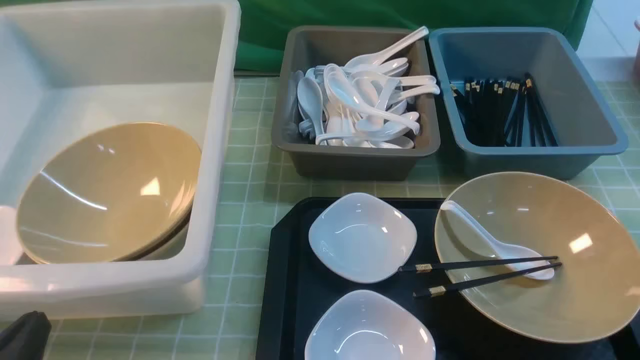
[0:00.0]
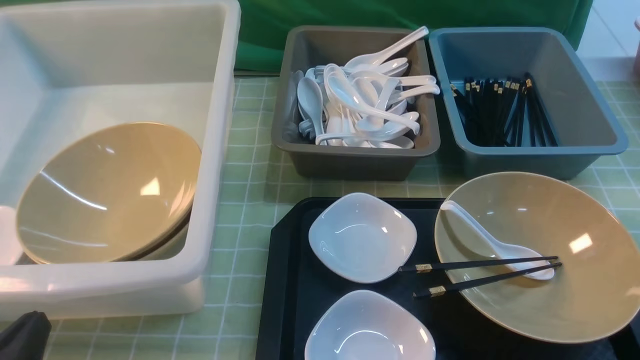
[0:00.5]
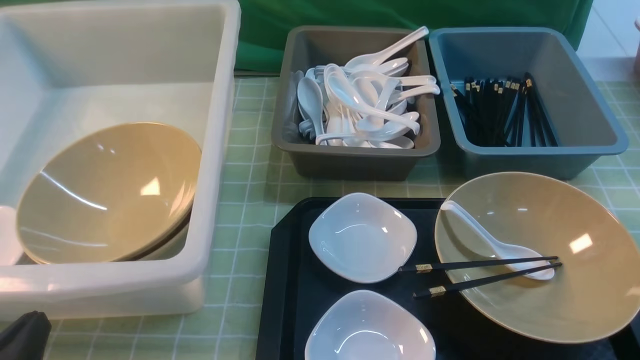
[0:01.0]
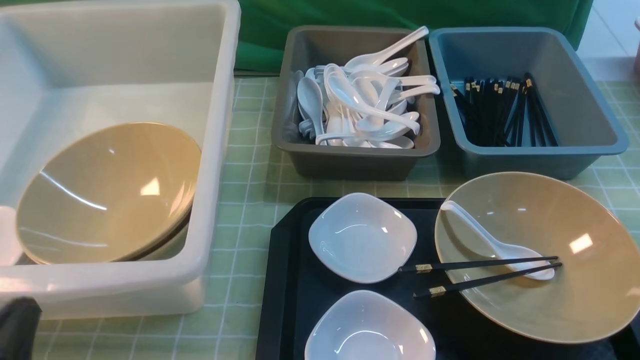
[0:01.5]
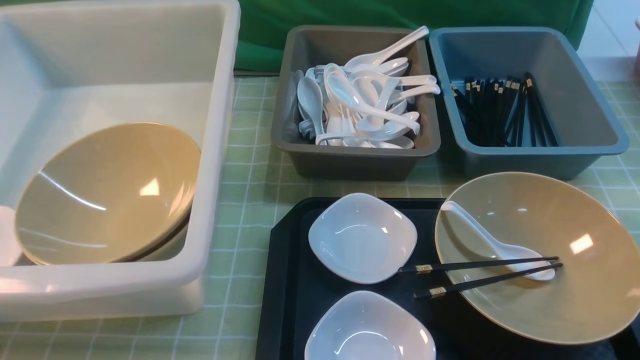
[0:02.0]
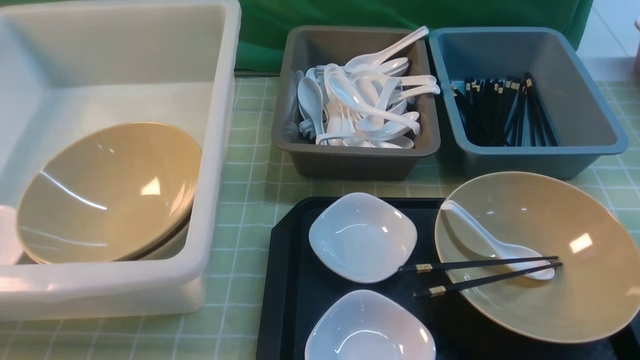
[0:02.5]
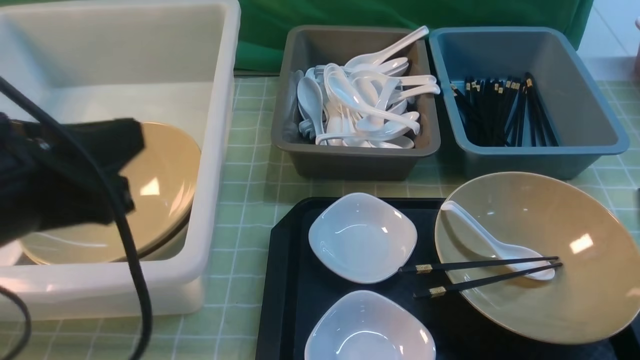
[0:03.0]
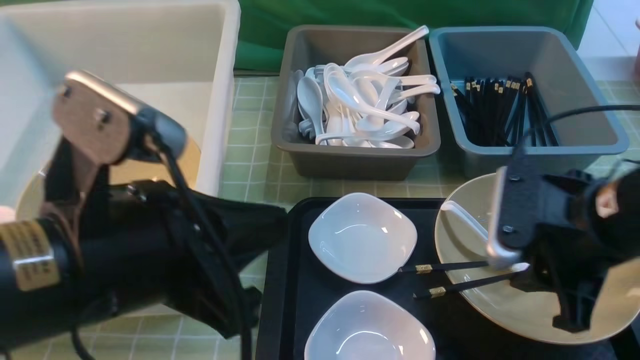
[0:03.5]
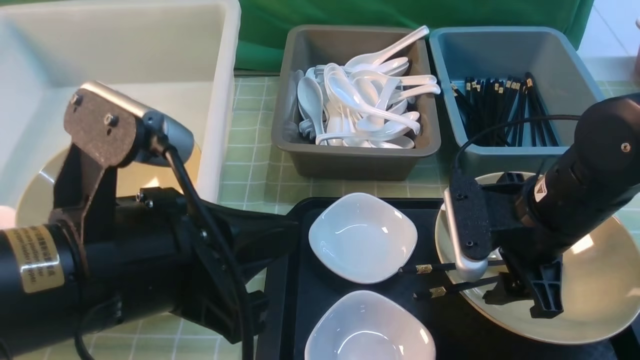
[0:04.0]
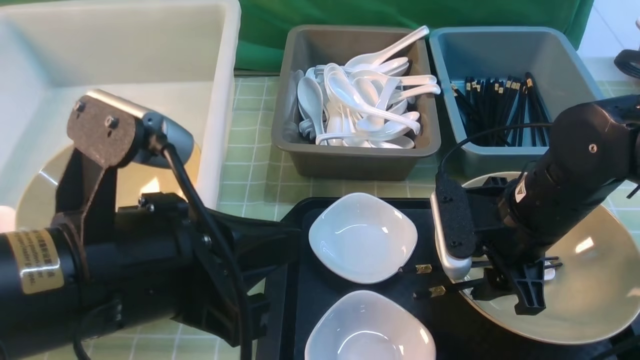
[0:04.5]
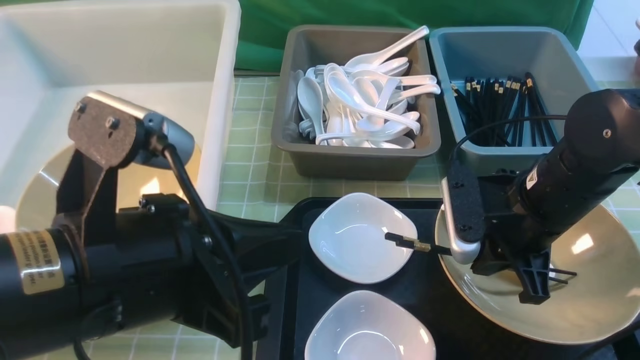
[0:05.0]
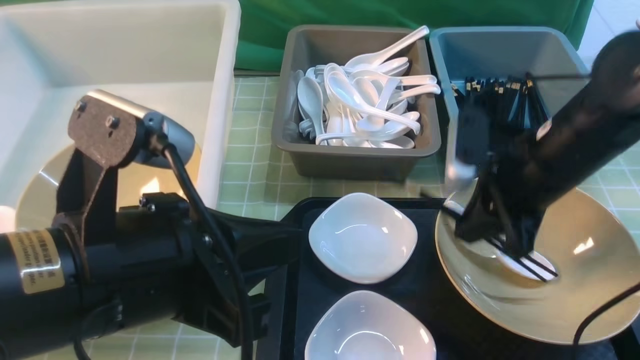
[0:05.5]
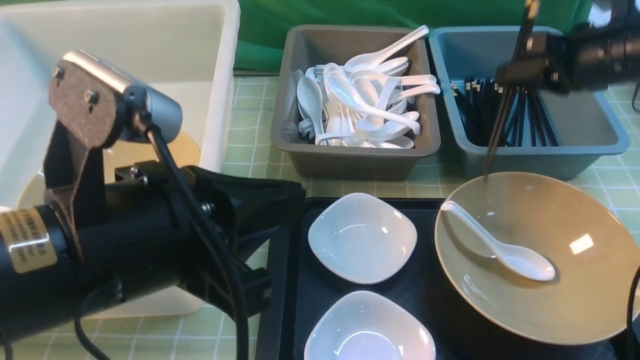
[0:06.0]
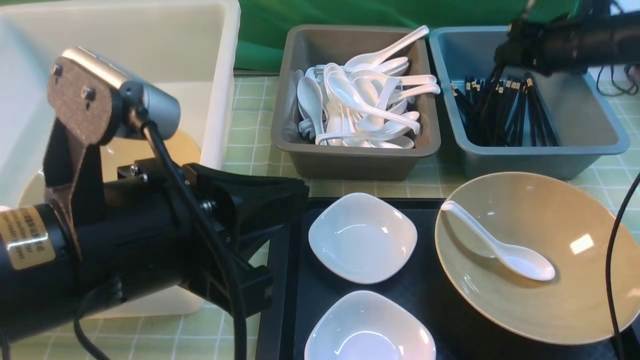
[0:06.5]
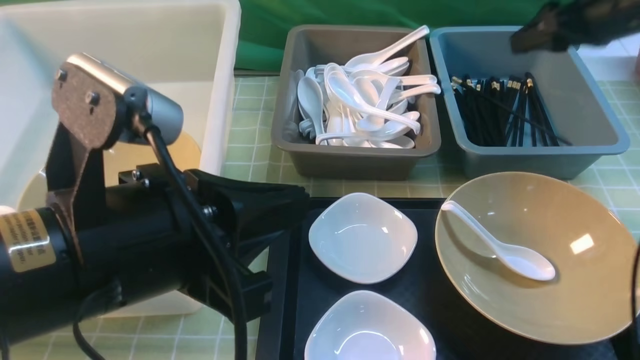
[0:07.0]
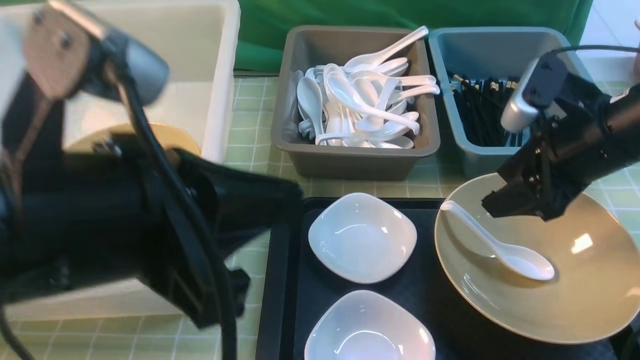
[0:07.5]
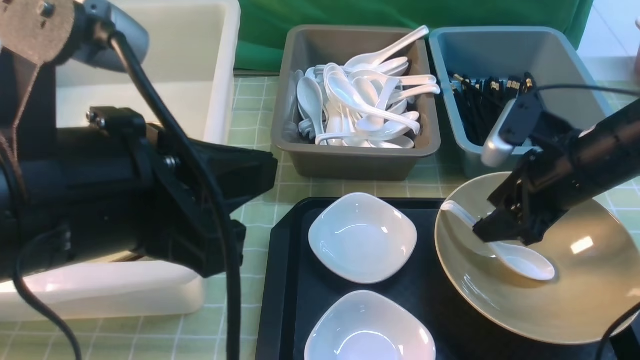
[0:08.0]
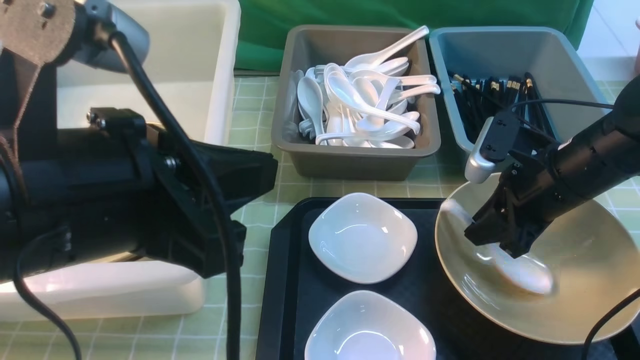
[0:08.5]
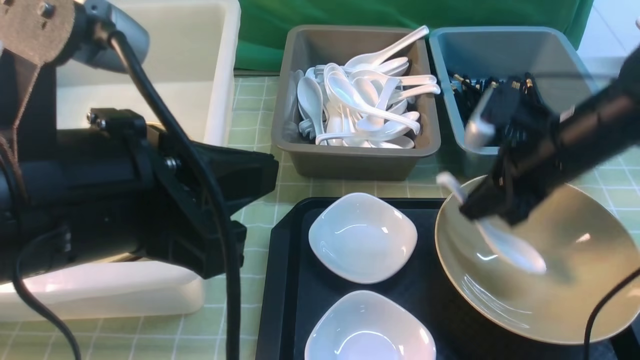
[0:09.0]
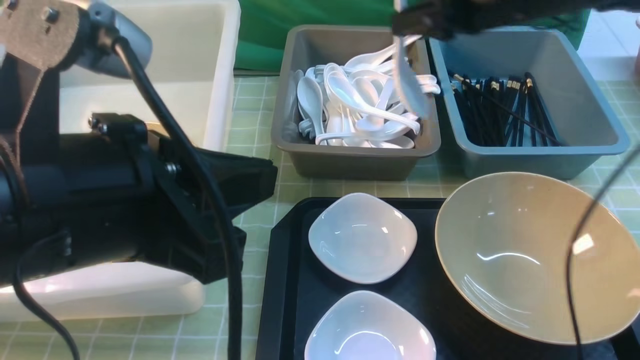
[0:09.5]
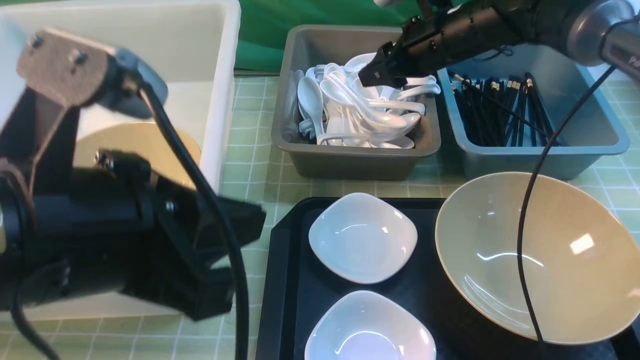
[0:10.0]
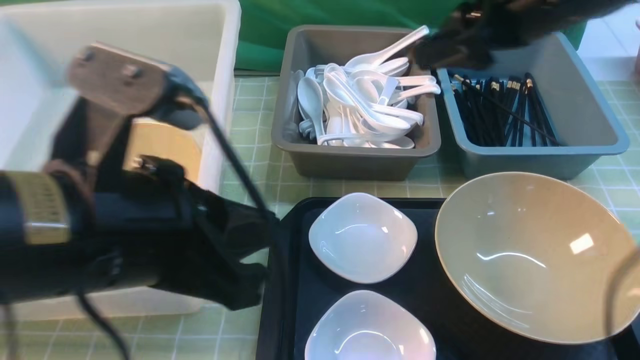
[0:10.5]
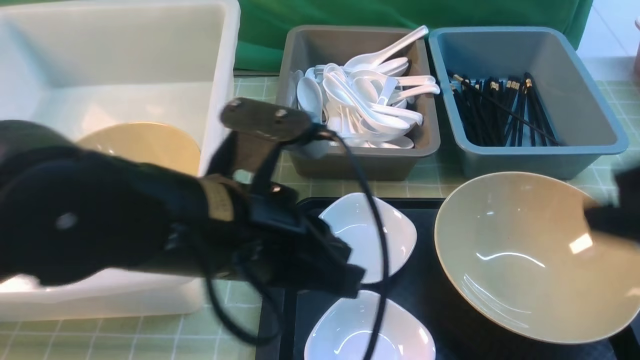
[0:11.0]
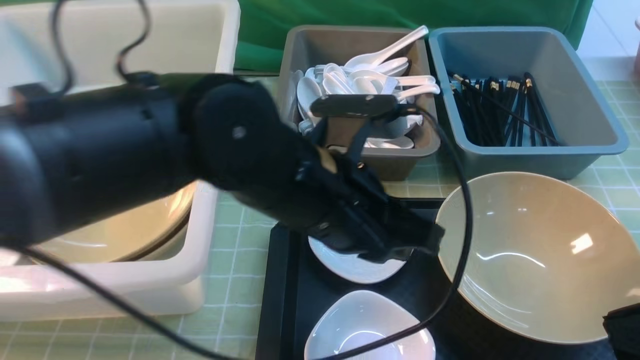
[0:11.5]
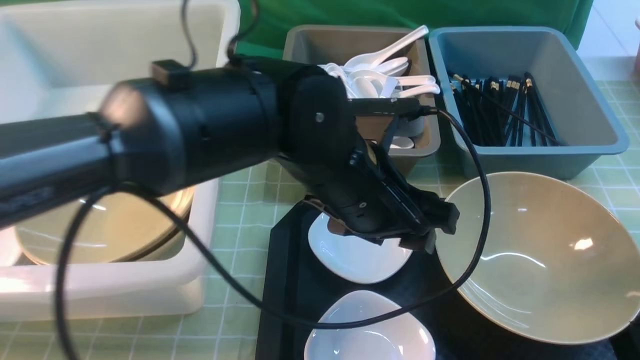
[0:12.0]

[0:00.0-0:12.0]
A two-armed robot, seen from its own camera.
Task of the whole recording: on green table put chopsticks spoon bowls plates into blue grey white boxes.
Step, 0:00.0 to 0:05.5: use the right arm to grab the chopsticks.
Step, 0:06.0 to 0:07.5: use the right arm to put the chopsticks into the small storage box on the right.
Step, 0:08.0 to 0:09.0: use the right arm to grab the soup spoon in the middle.
Step, 0:09.5 to 0:10.0: use the right arm to put the soup spoon into the small storage box in the middle.
0:02.0 to 0:04.0: The left gripper goes roughly 20 cm to the right, upward and forward, while the right gripper goes some 25 cm forward and to the left, and opens its fingers.
0:04.0 to 0:06.0: The right gripper is displaced forward, to the right and upward by roughly 15 cm, and closes up.
0:06.0 to 0:08.0: The right gripper moves backward and downward, approximately 10 cm, and opens its fingers.
0:08.0 to 0:10.0: The right gripper heads forward and to the left, covering some 20 cm, and closes up.
0:10.0 to 0:12.0: The right gripper travels backward by about 40 cm, and closes; the left gripper travels to the right, forward and downward by approximately 20 cm, and opens its fingers.

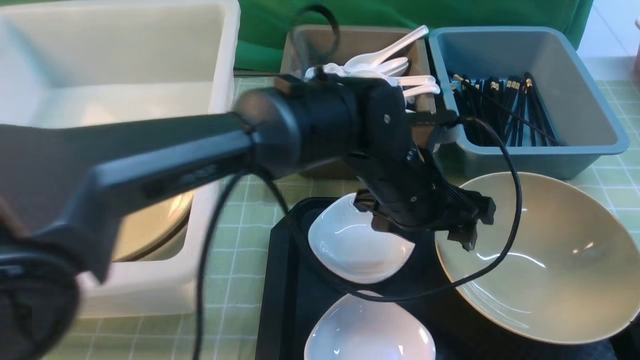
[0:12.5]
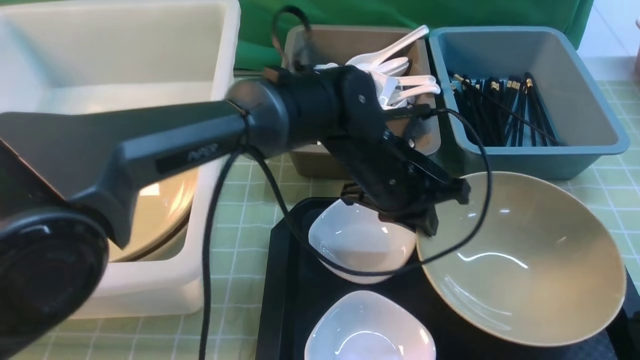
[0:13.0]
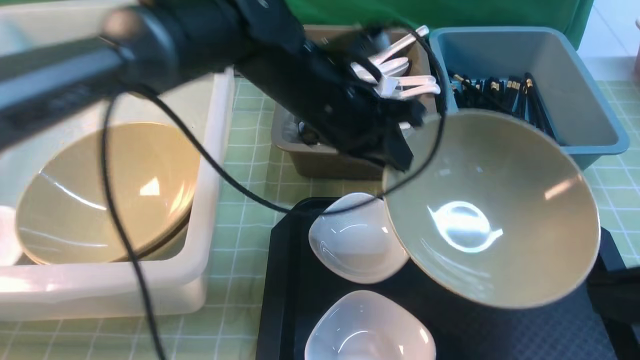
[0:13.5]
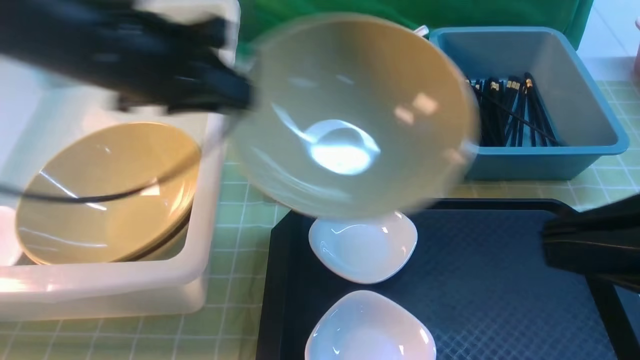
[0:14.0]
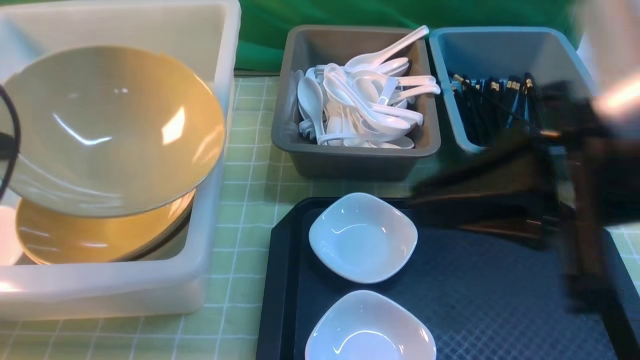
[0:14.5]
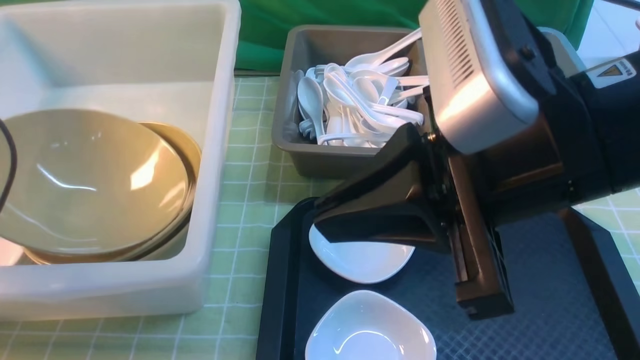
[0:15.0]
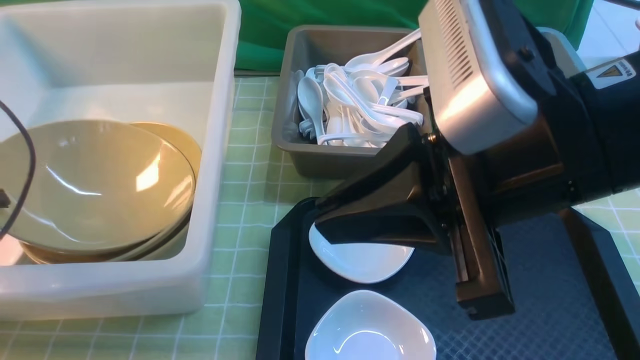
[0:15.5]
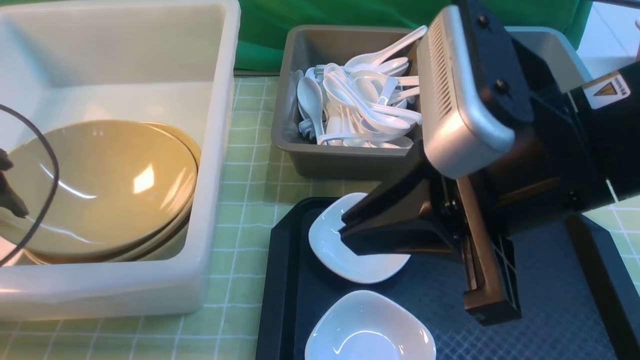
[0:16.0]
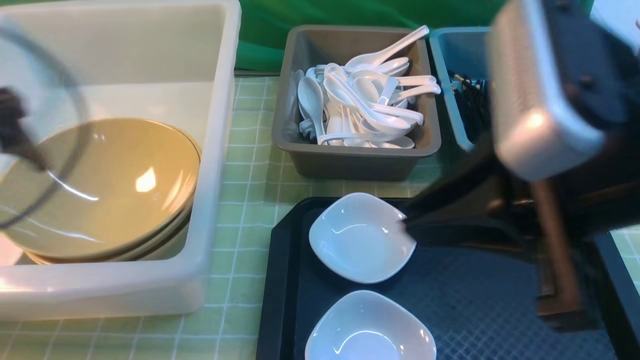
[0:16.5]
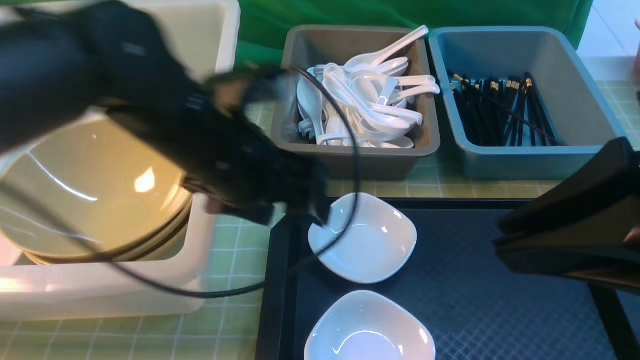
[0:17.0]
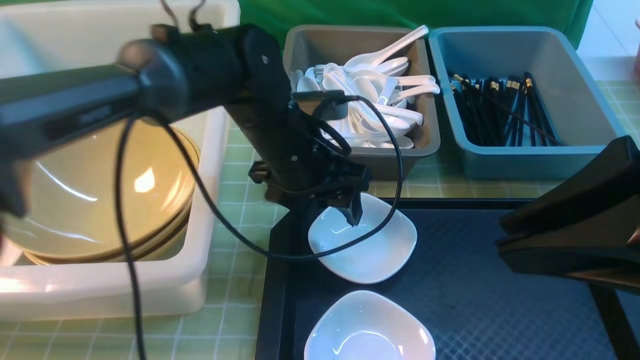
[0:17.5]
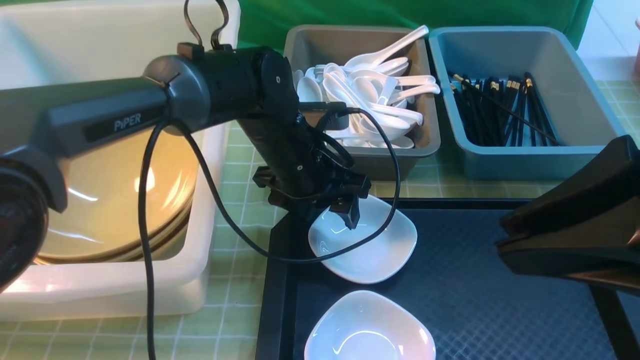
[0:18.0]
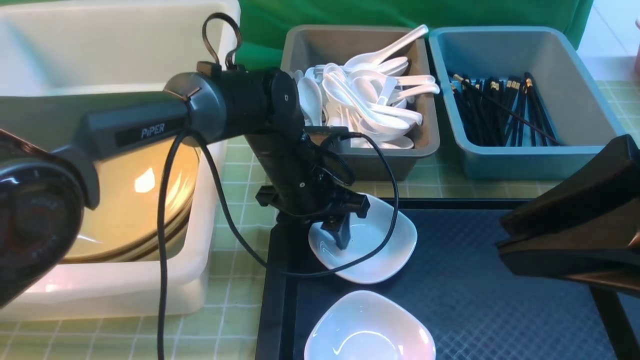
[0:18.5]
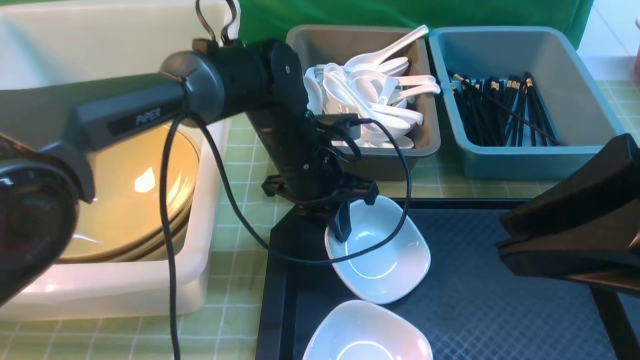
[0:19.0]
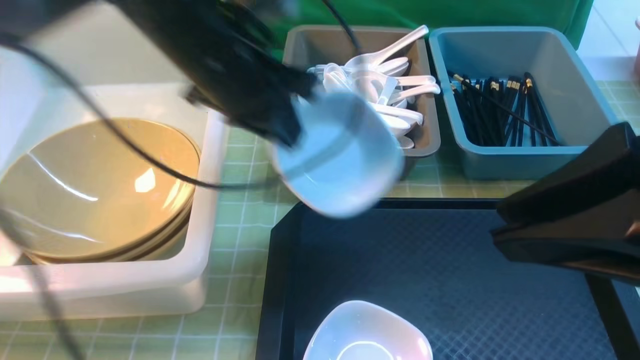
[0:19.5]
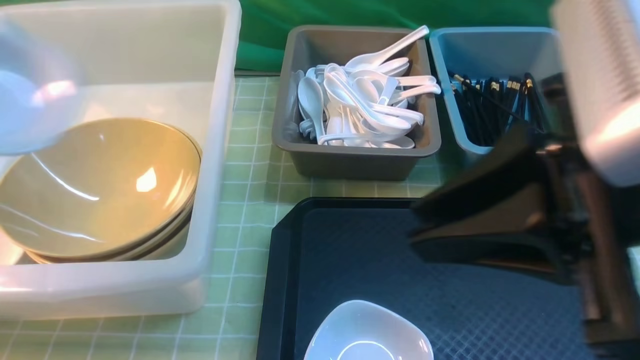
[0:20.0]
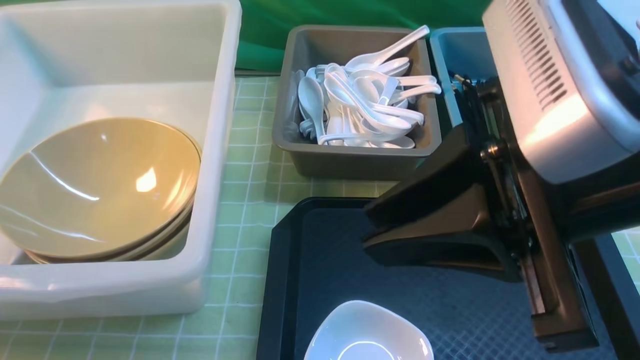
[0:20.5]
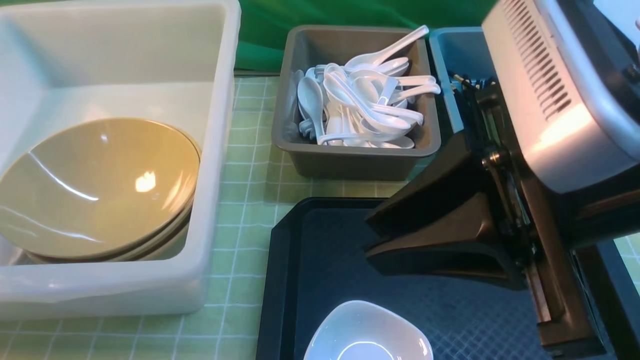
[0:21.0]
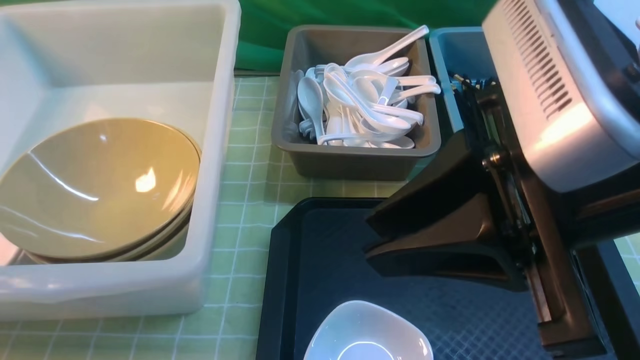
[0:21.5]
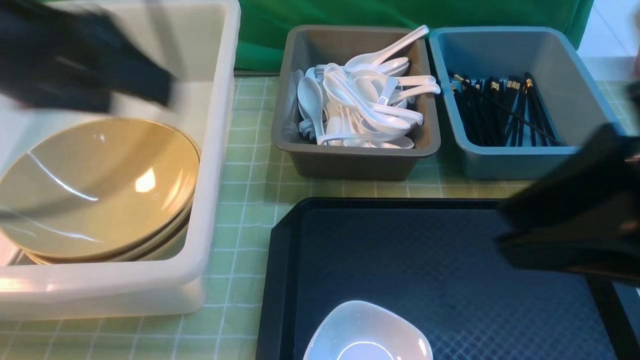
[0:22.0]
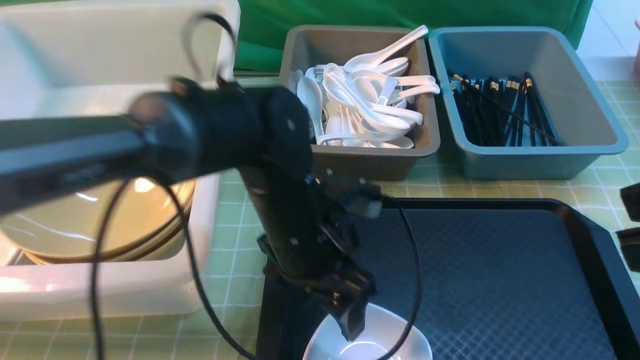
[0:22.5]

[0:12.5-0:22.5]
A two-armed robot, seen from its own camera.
Task of the whole recording: on green table put chopsticks spoon bowls plates into blue grey white boxes.
Step, 0:13.5 to 0:16.0: use the left arm to put the noodle bowl into the large storage box on the left.
Step, 0:16.5 to 0:19.0: use the left arm to grab the plate.
Step, 0:19.5 to 0:21.0: use the left arm to put the plate into the large storage box on the left.
0:12.5 to 0:14.5: The right gripper travels to the left, forward and upward by about 15 cm, while the left gripper travels to the left by approximately 40 cm, and closes up.
0:14.5 to 0:16.5: The left gripper opens up.
0:16.5 to 0:18.5: The left gripper moves to the right, downward and forward, roughly 35 cm, and closes its fingers; the right gripper moves approximately 5 cm.
0:18.5 to 0:20.5: The left gripper moves to the left and upward, approximately 40 cm, and closes up. The right gripper ends up roughly 5 cm from where it was.
0:20.5 to 0:22.5: The left gripper is displaced to the right by about 40 cm, and opens. The right gripper shifts about 10 cm to the right and backward.
